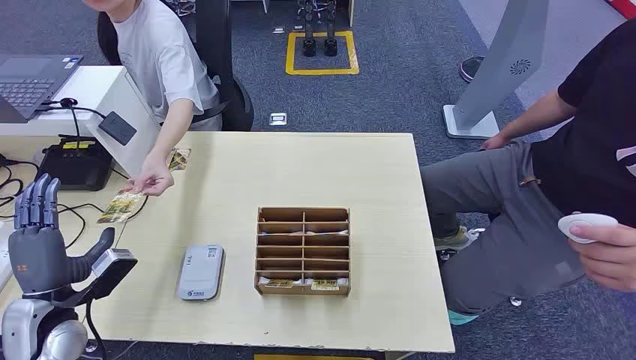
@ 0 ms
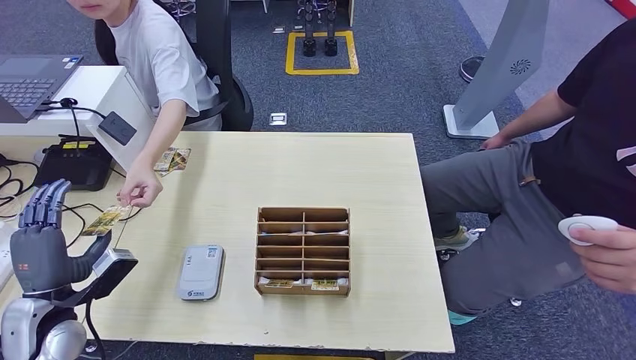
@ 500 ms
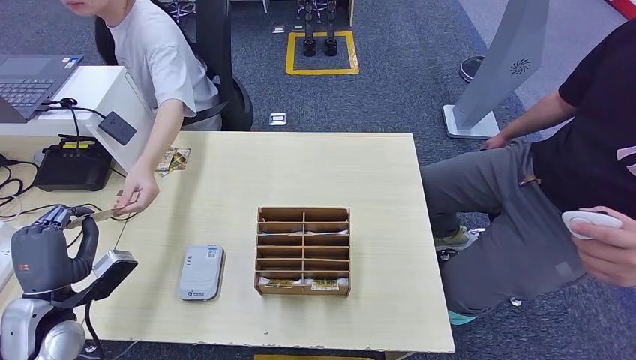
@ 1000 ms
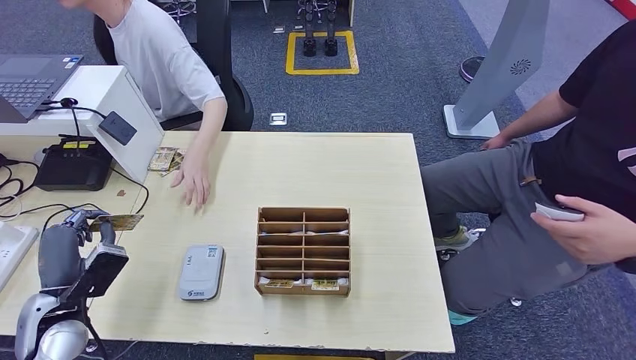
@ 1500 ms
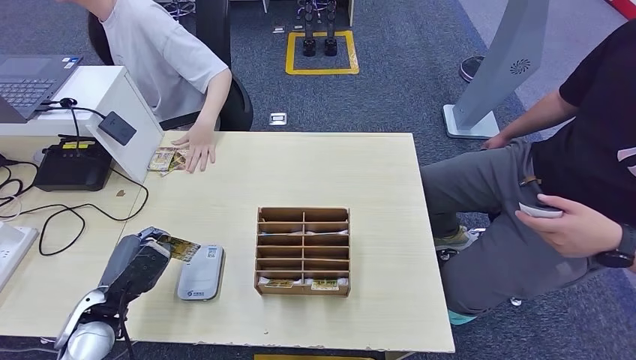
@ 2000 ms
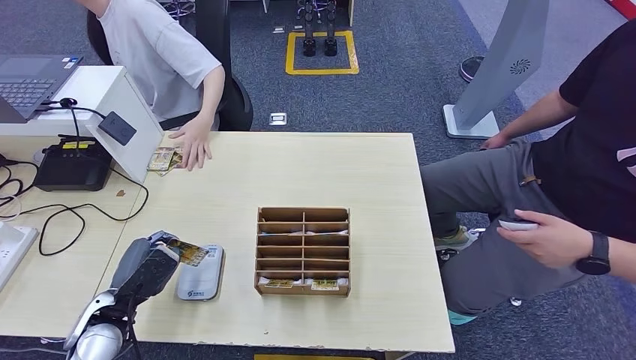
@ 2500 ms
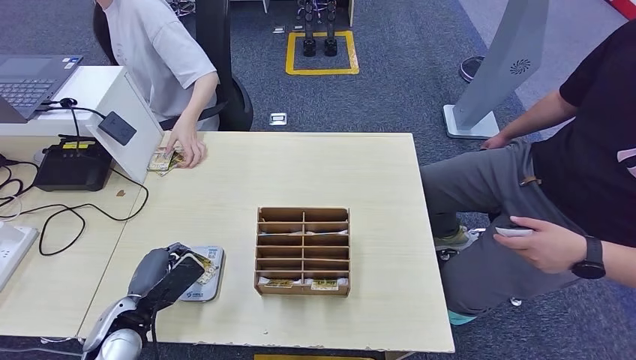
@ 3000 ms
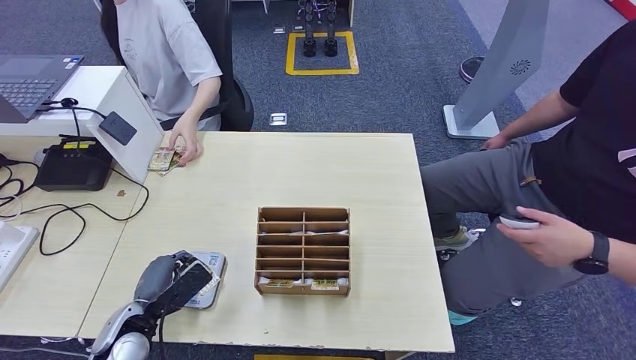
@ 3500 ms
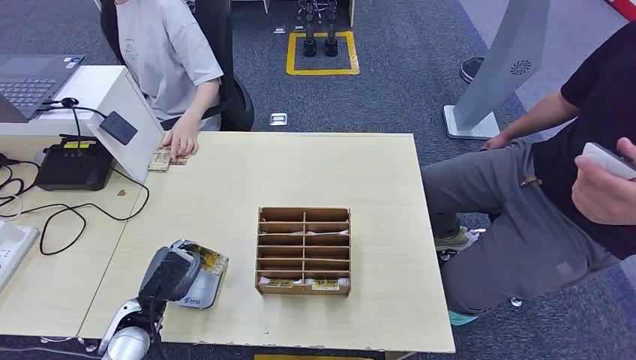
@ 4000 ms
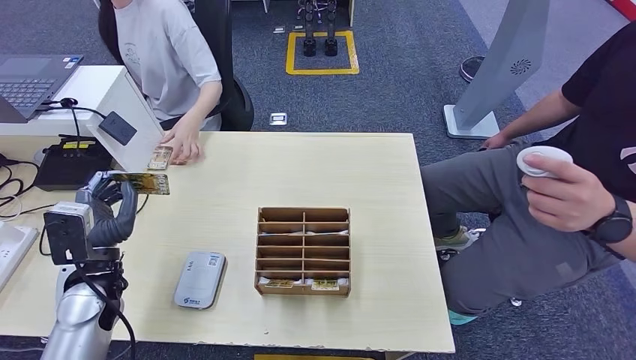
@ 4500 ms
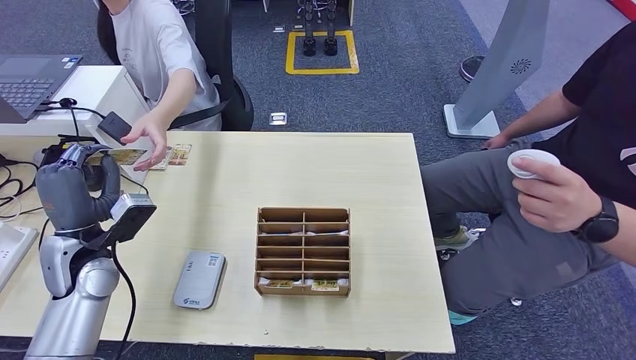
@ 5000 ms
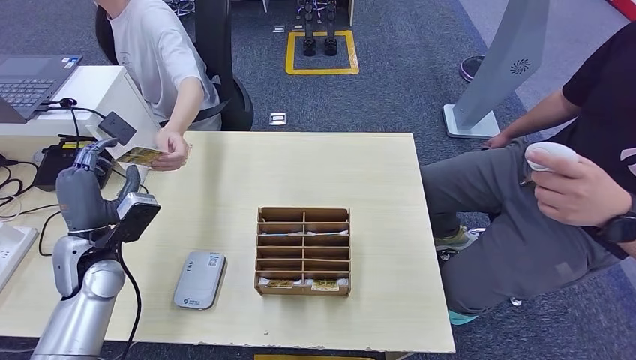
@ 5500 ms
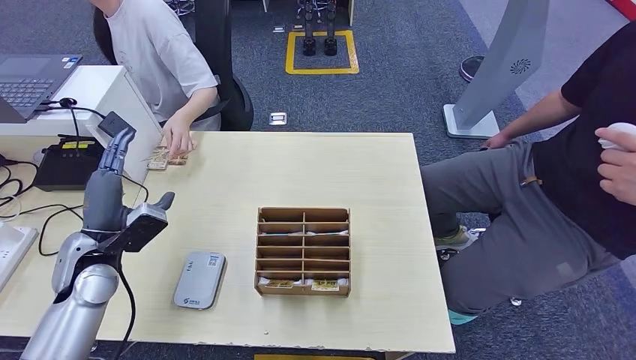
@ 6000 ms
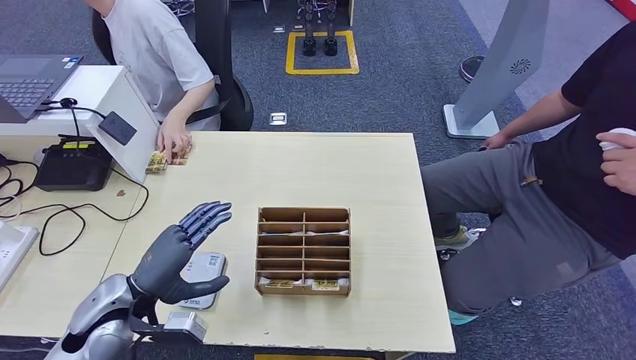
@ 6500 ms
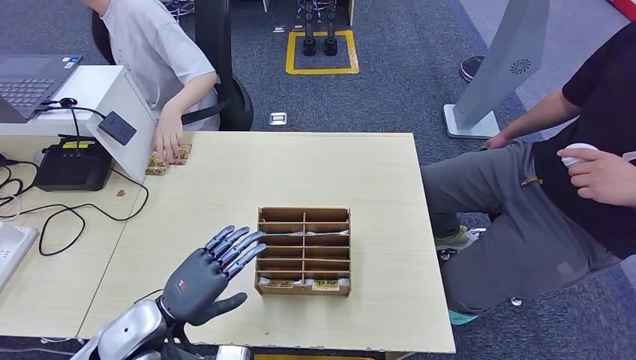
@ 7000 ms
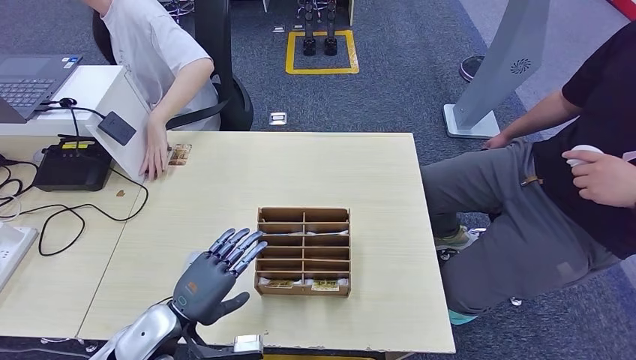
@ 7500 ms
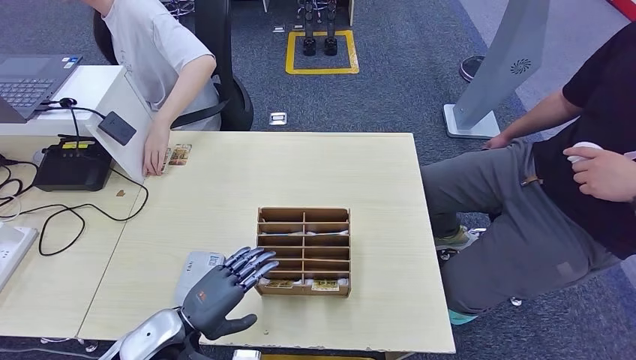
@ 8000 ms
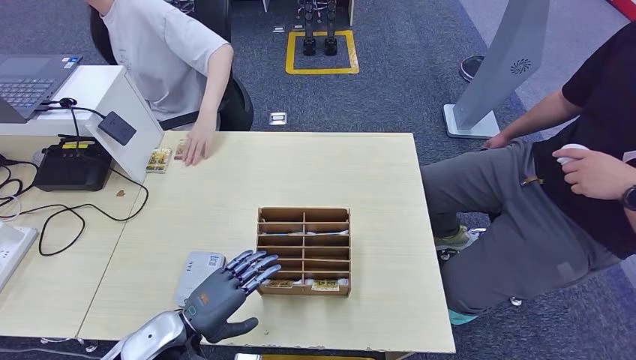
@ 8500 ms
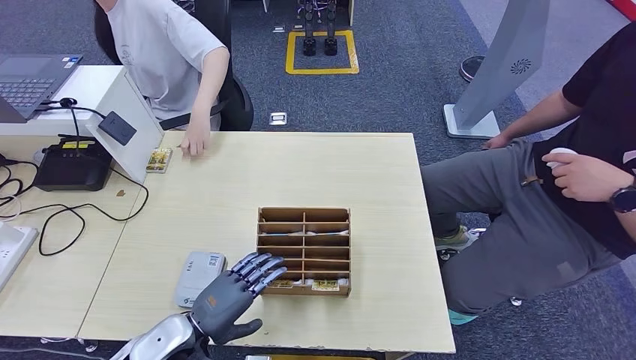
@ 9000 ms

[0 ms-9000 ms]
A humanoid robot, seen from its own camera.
Step, 0 ms to 1500 ms: Take the ID card from the person's hand.
Step, 2000 ms to 3000 ms: Place the ID card on the card reader.
Step, 4000 ms to 5000 ms: Hand the ID card to the person.
2000 ms to 4500 ms: The left hand goes approximately 5 cm upward.
4500 ms to 7000 ms: The left hand moves to the right and backward, approximately 10 cm.
7000 ms to 9000 ms: The left hand changes place by about 5 cm.

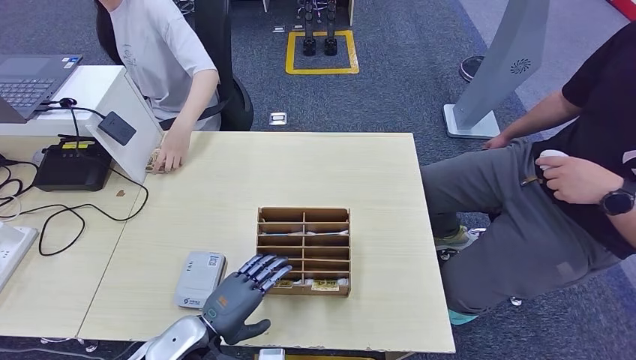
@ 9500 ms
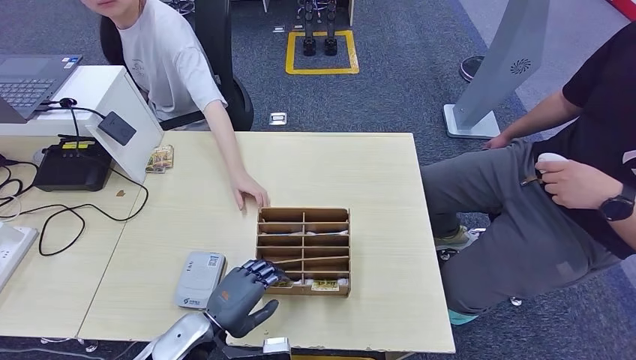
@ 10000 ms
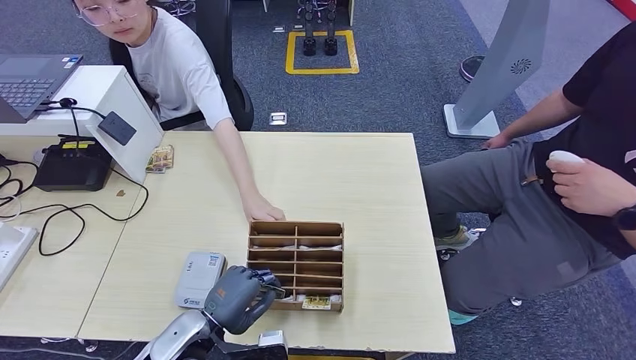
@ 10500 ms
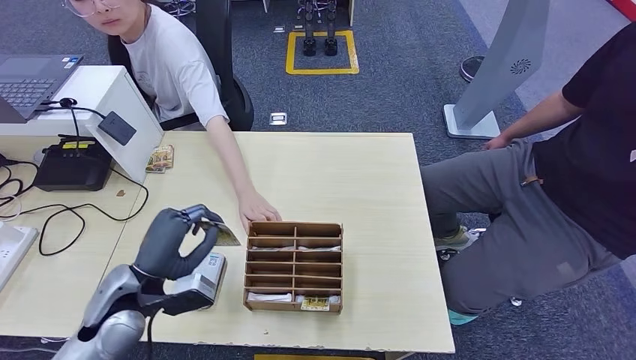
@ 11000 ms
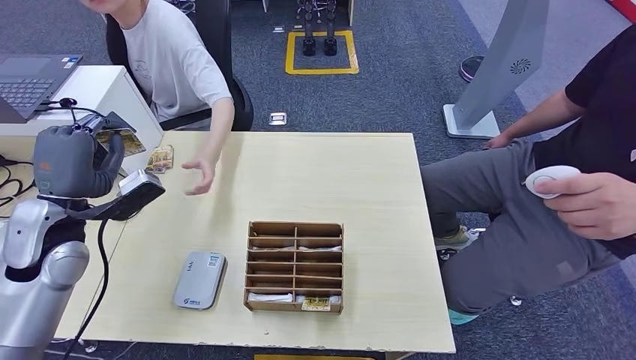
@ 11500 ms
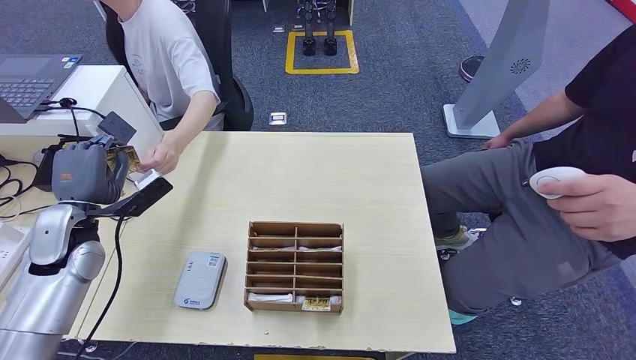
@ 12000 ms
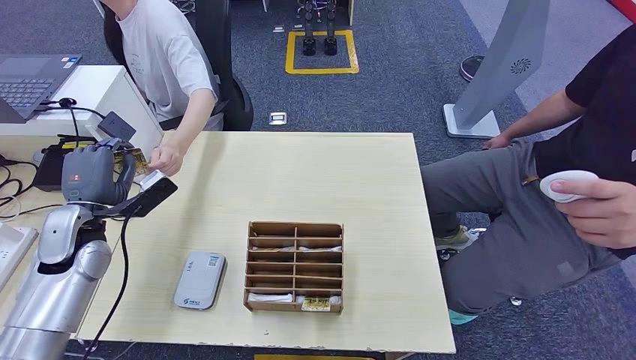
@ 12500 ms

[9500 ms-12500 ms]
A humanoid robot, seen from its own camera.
Step, 11500 ms to 12500 ms: Hand the room key to the person.
9500 ms to 11000 ms: The left hand moves upward, to the left and forward, approximately 10 cm.
11000 ms to 12500 ms: The left hand shifts about 15 cm to the left and forward.

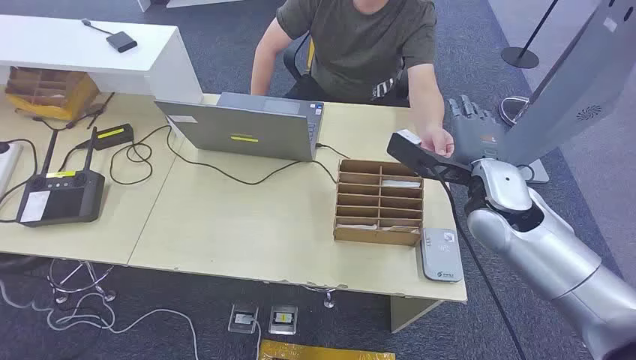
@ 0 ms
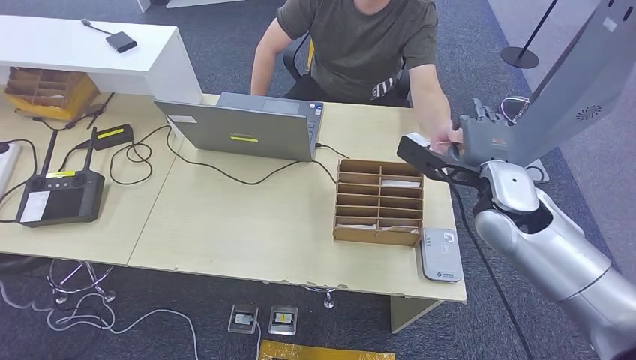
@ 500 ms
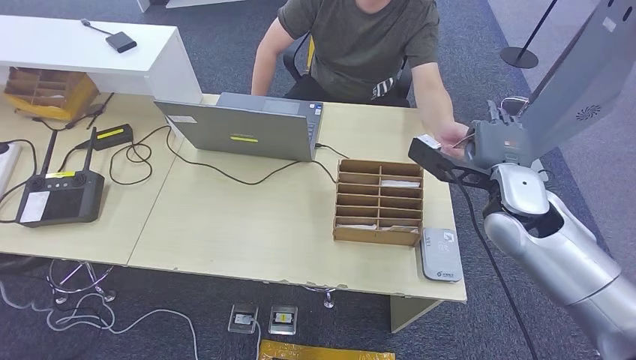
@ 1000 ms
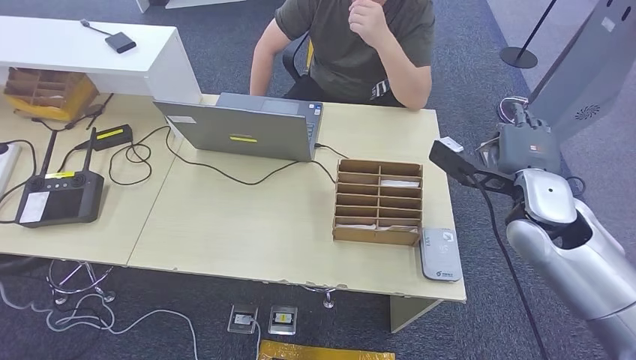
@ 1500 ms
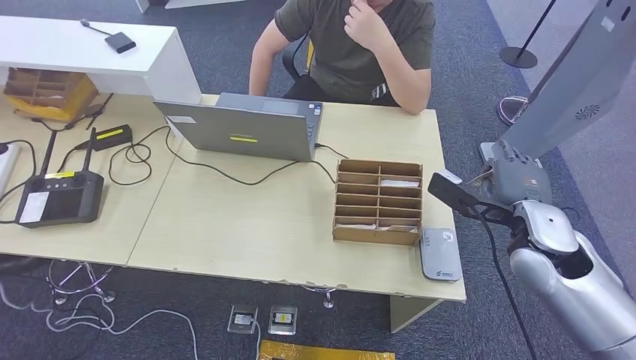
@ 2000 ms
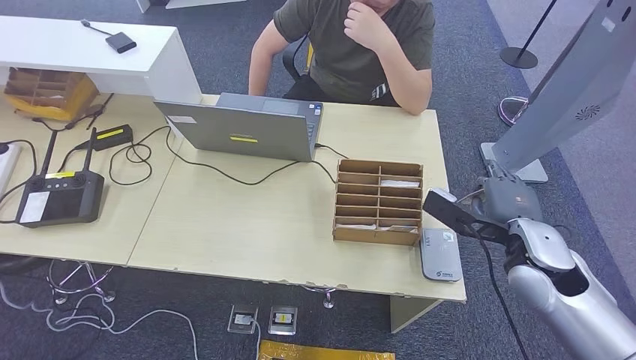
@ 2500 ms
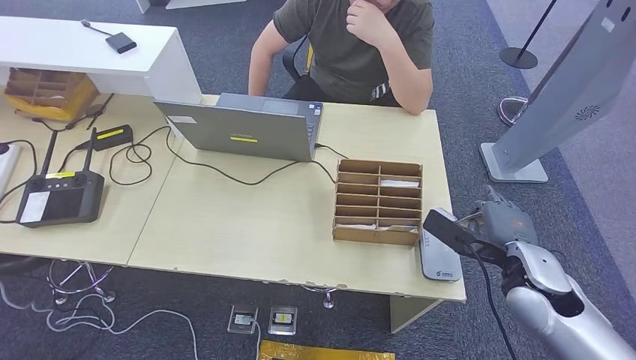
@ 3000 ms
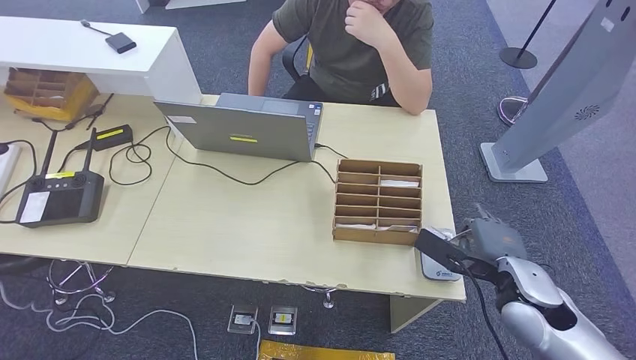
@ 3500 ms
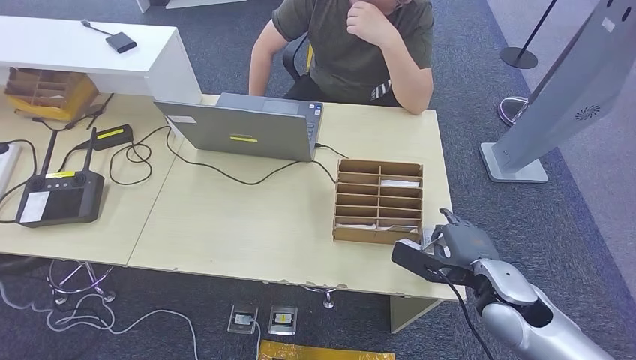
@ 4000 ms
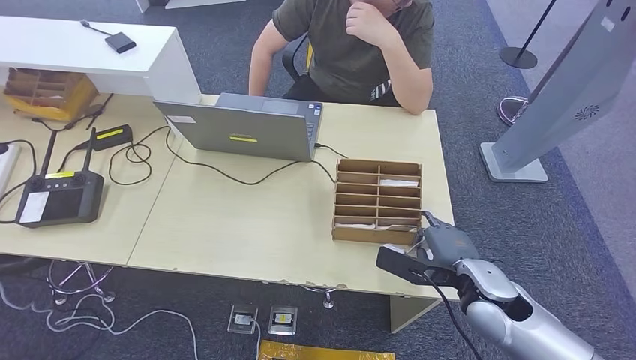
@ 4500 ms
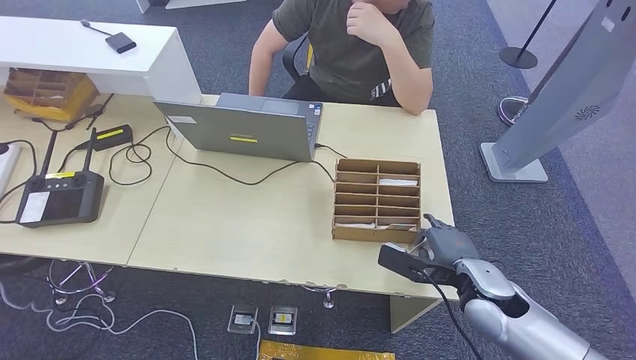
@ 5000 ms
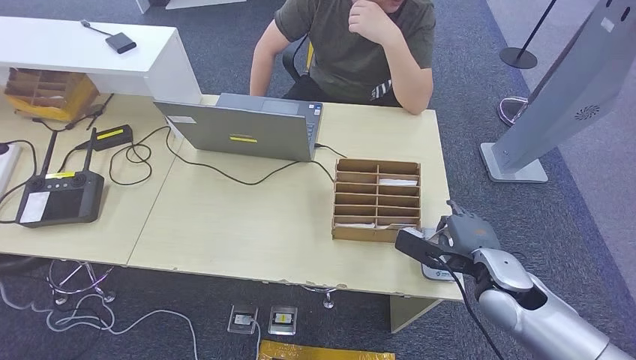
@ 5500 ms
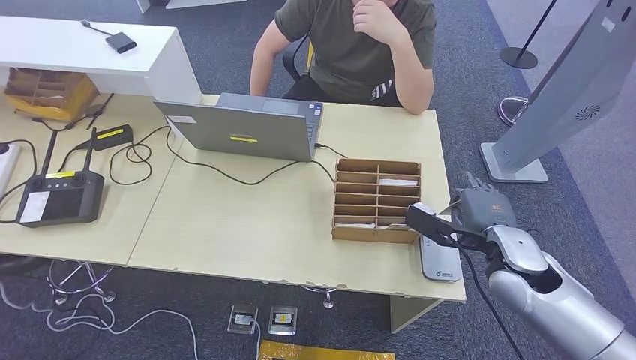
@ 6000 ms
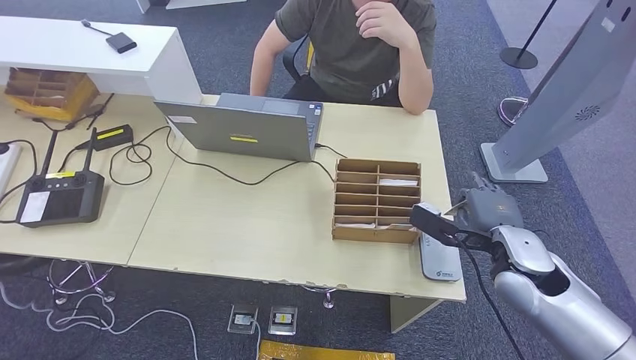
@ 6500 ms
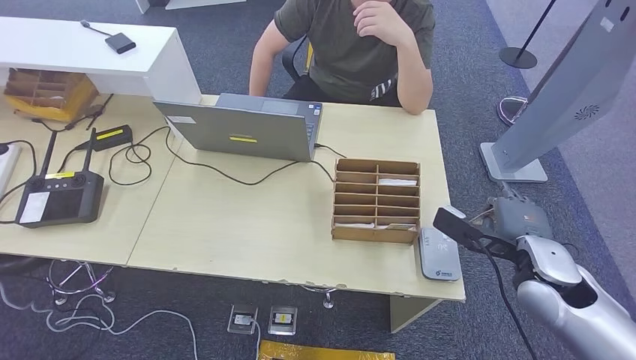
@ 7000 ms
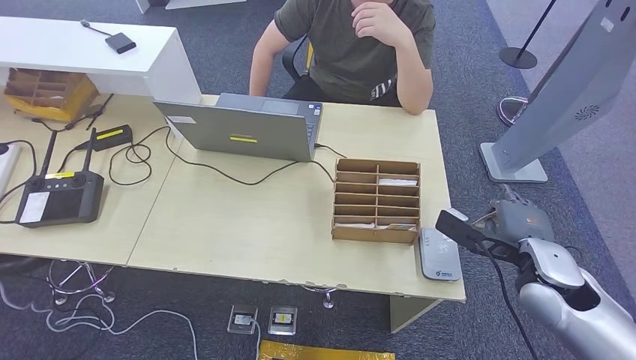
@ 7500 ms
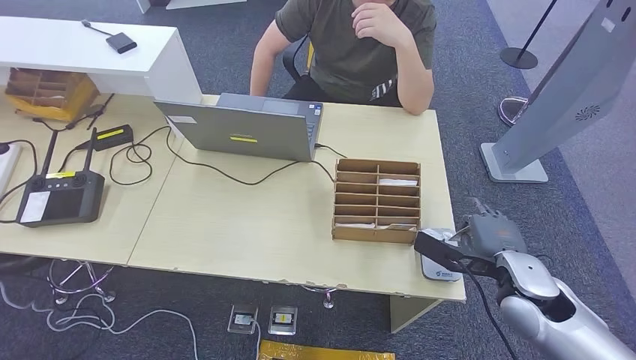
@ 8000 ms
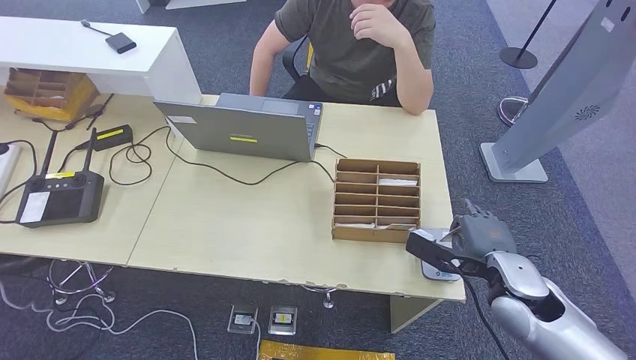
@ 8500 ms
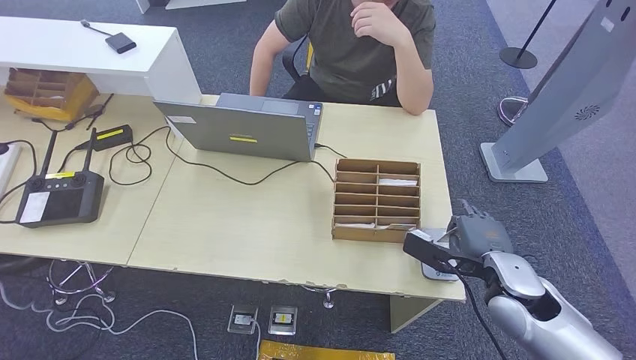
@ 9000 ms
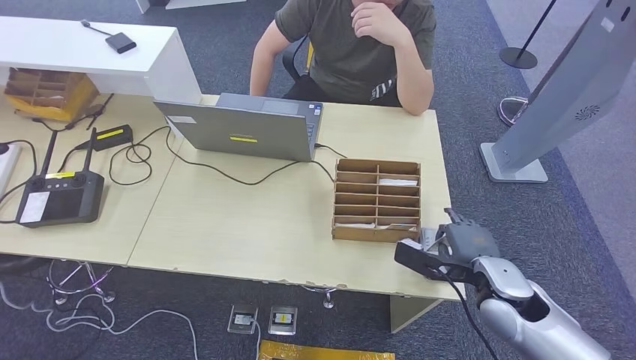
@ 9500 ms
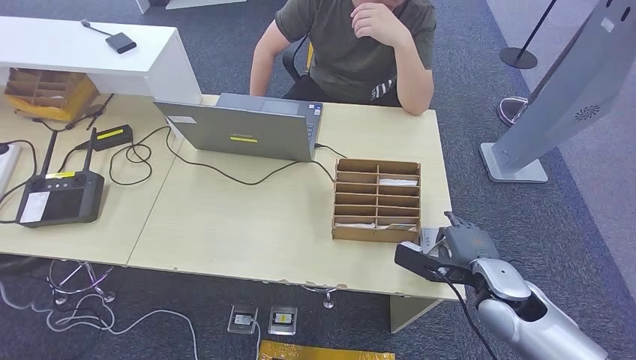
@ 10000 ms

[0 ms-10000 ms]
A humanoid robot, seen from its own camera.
Step, 0 ms to 2500 ms: Take the ID card from the person's hand.
Step, 3000 ms to 6000 ms: Place the ID card on the card reader.
2000 ms to 4000 ms: The right hand heads downward and backward, covering about 10 cm.
4000 ms to 6000 ms: The right hand moves some 5 cm.
6000 ms to 10000 ms: The hands stay close to where they were, moving slightly.
